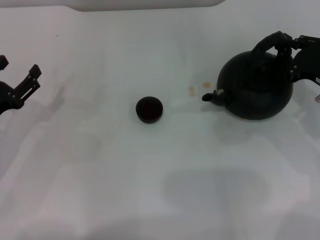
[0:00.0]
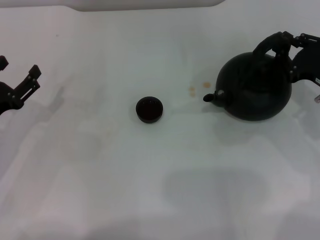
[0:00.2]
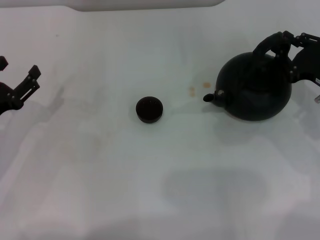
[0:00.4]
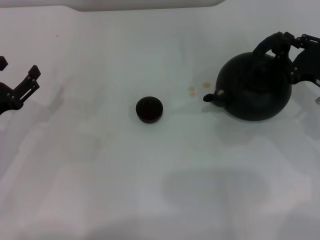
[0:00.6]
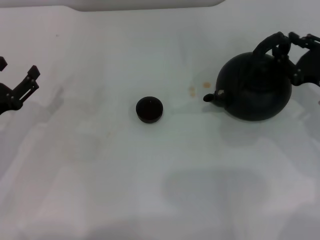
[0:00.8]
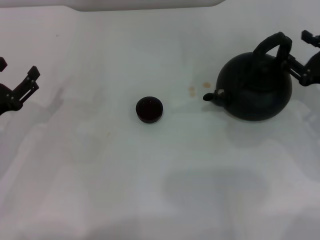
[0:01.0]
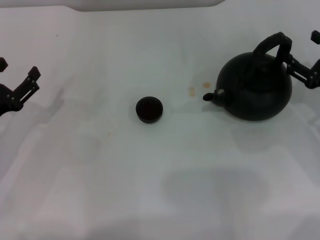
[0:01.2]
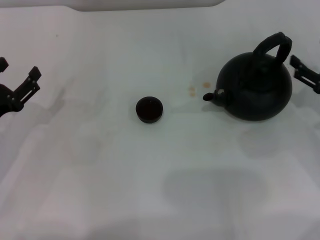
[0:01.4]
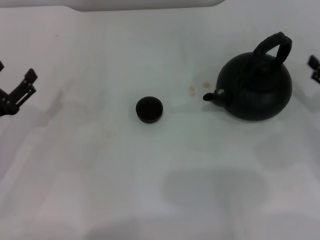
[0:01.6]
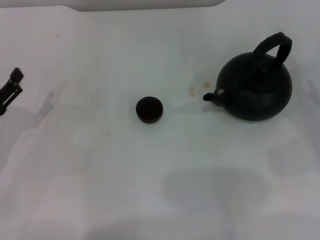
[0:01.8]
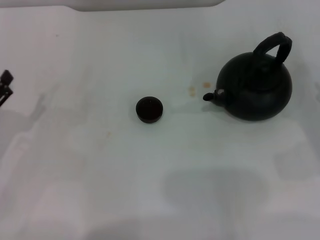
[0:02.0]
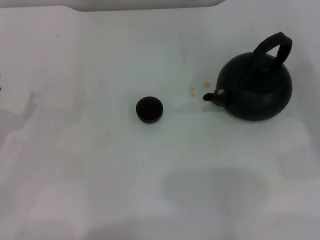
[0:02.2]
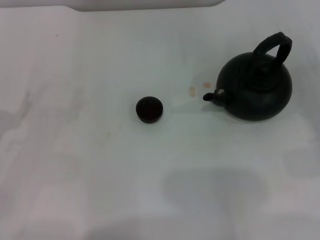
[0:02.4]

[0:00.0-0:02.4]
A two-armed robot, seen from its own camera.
Task of the whole recording: Grasp the handle of the teapot with one hand and pour tea into the teacup.
0:00.0 to 0:01.2: The right gripper opens up.
0:01.2 to 0:02.4: The right gripper is displaced backward and to the right by about 10 cm.

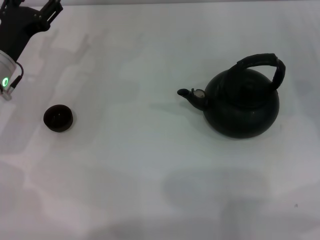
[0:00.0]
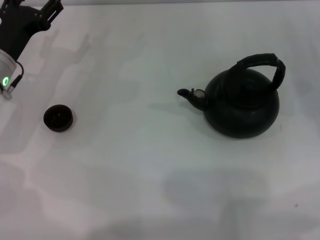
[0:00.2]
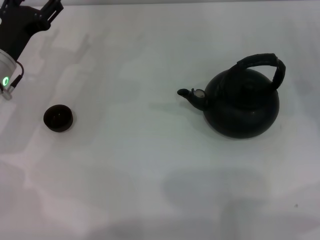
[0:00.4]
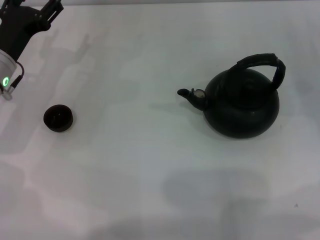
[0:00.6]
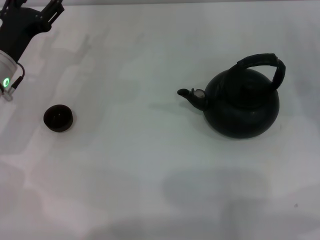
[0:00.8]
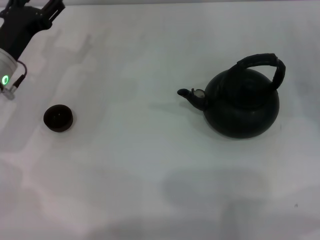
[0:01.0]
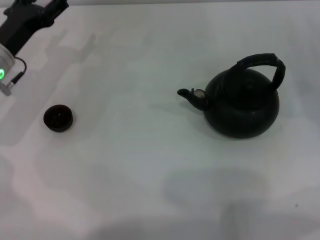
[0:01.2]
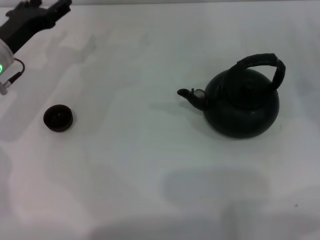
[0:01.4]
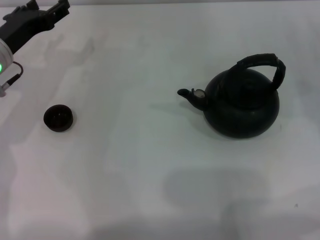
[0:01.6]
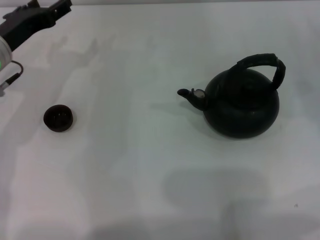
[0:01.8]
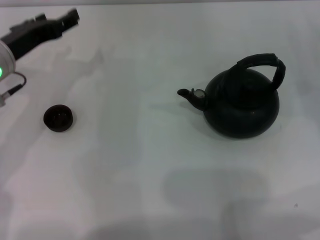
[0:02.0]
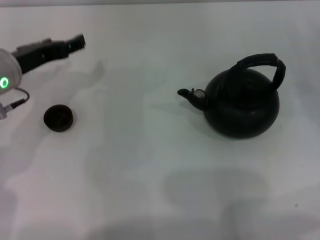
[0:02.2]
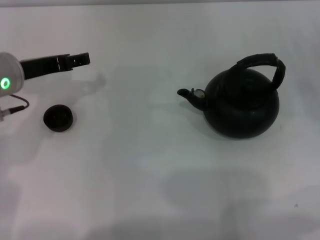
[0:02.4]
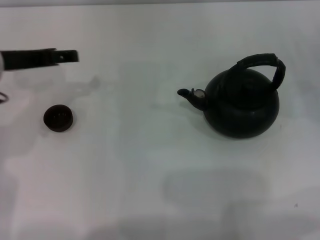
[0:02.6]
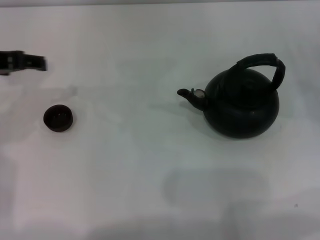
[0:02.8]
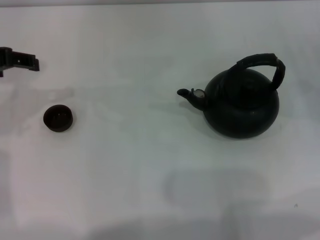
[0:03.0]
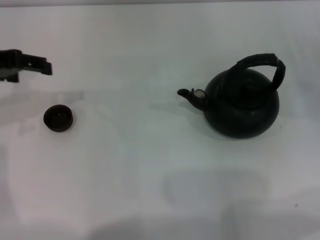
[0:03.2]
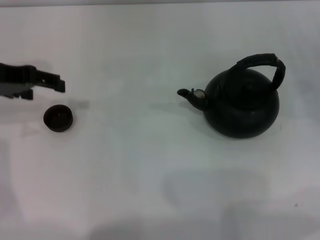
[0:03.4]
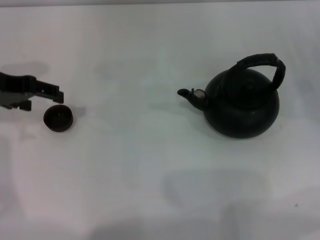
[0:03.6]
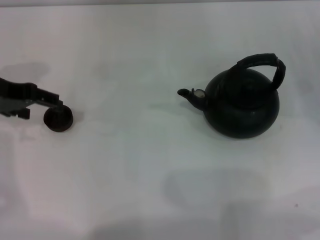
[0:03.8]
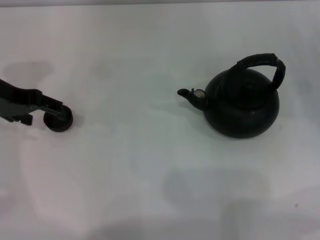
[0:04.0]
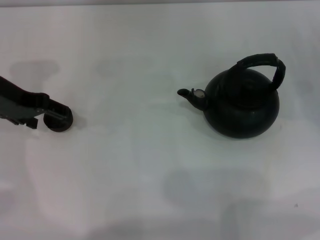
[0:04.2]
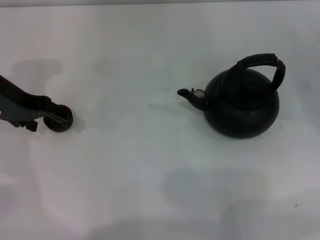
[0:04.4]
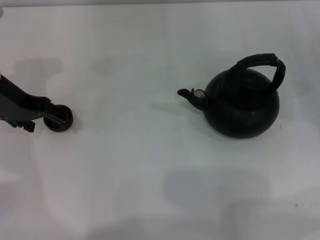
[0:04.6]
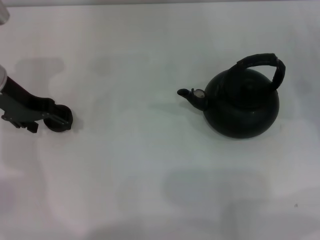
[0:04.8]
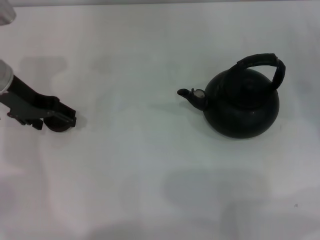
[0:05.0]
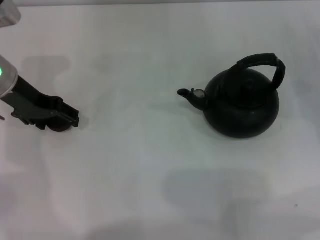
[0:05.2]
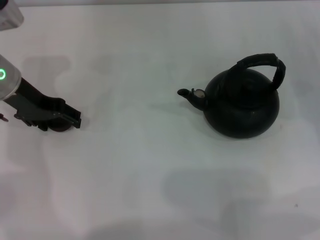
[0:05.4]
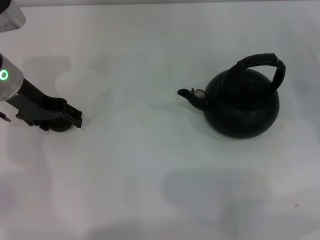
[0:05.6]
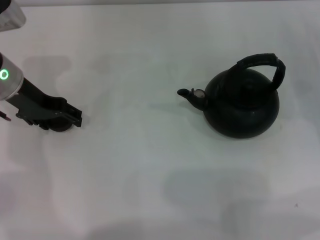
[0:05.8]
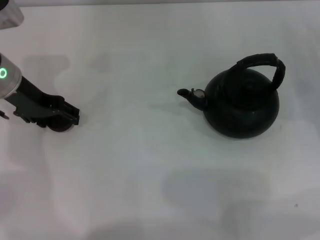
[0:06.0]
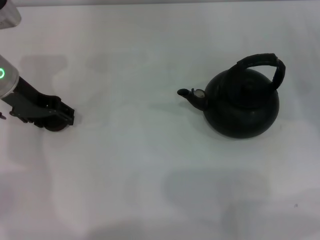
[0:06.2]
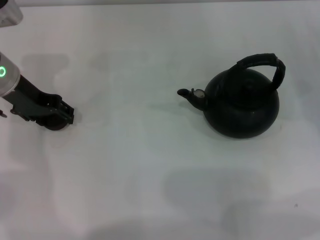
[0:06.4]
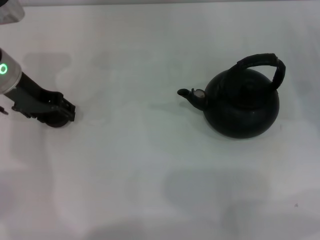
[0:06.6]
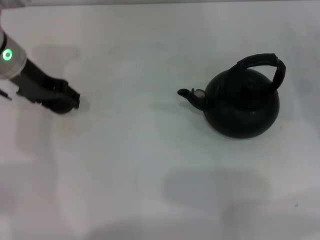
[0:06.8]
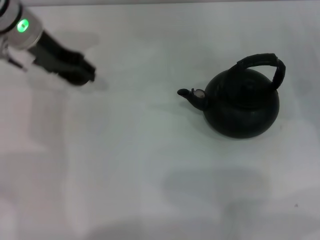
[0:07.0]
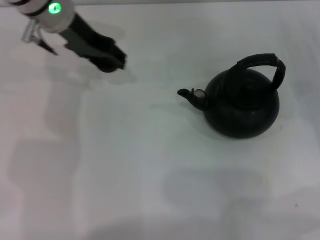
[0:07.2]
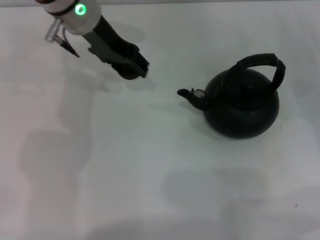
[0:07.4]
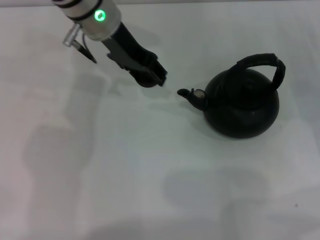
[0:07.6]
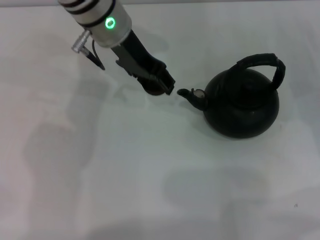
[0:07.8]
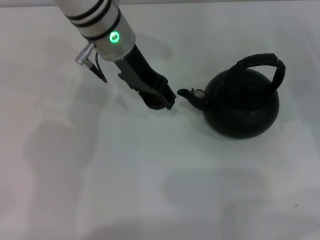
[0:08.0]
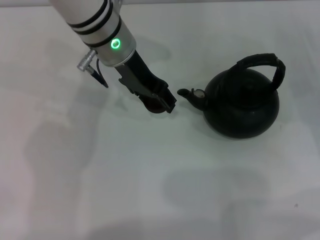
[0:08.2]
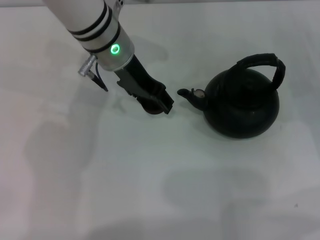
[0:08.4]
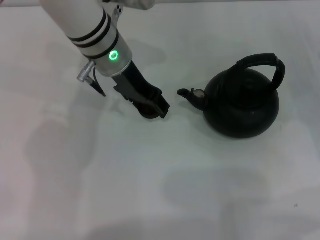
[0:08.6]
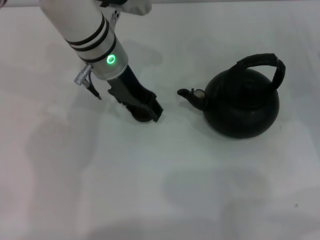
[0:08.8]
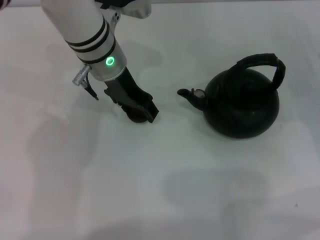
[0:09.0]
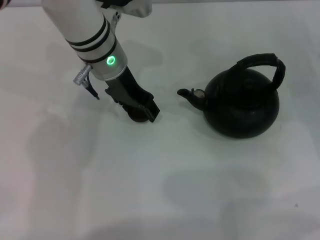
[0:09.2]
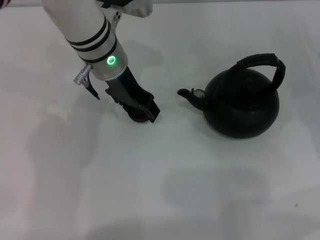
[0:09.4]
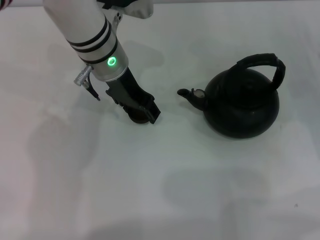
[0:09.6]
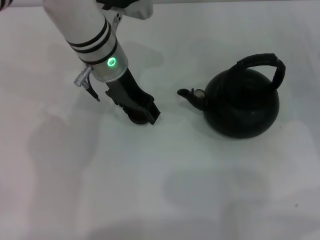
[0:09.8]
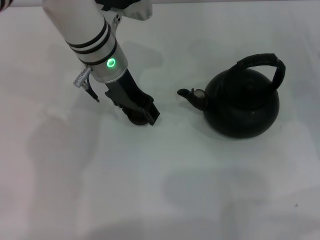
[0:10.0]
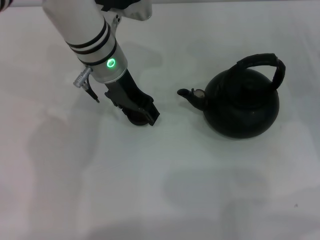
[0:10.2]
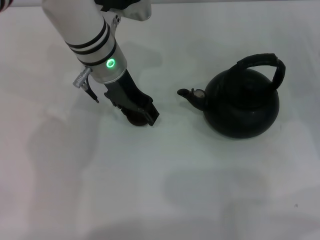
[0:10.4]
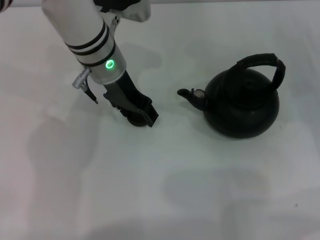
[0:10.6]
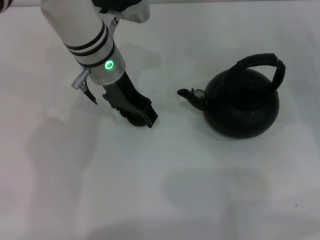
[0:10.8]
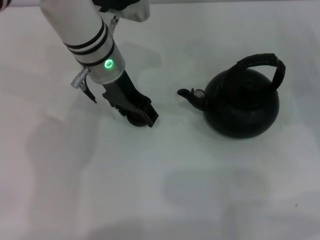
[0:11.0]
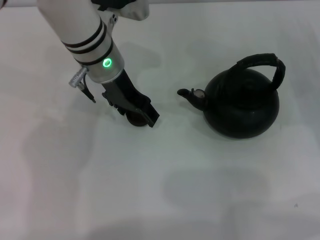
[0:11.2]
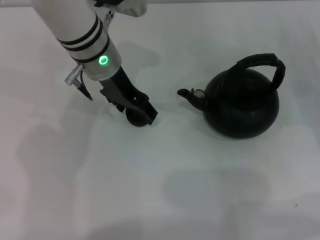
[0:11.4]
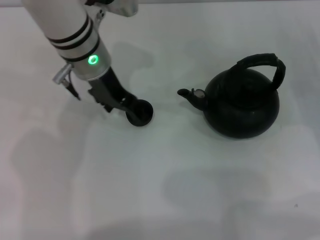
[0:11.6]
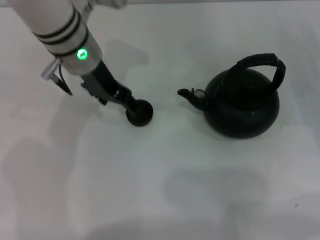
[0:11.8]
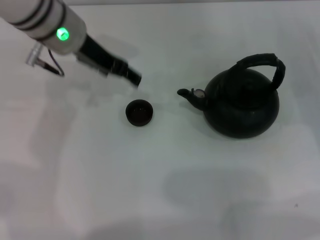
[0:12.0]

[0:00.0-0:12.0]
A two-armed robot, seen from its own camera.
Task of the whole recording: Grasp the handle of the teapot with one hand and pour tea into the teacup.
Step, 0:00.0 to 0:06.8: Pick up the teacup with the left gripper.
Step, 0:07.0 to 0:11.8: Place the teacup in the center of view with the left gripper.
0:00.0 to 0:01.6: There are only small adjustments of the grippers.
0:01.6 to 0:03.0: The left gripper shifts roughly 15 cm upward.
0:03.0 to 0:04.4: The left gripper is displaced downward by roughly 5 cm.
0:04.4 to 0:06.0: The grippers make only small movements.
0:06.0 to 0:07.6: The left gripper shifts some 15 cm to the right and upward, and closes up.
0:07.6 to 0:09.0: The left gripper shifts approximately 5 cm downward.
0:09.0 to 0:10.4: Both grippers stay about where they are.
0:10.4 to 0:12.0: The left gripper moves upward and to the left, roughly 10 cm, and opens.

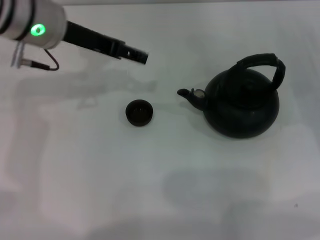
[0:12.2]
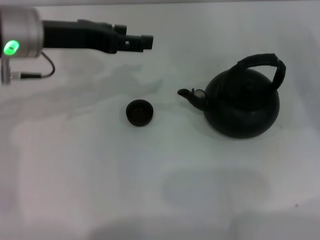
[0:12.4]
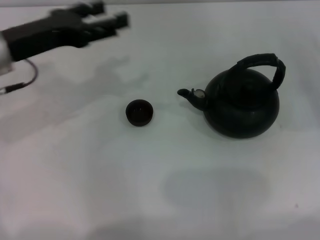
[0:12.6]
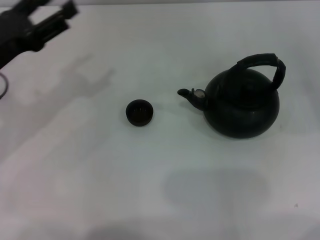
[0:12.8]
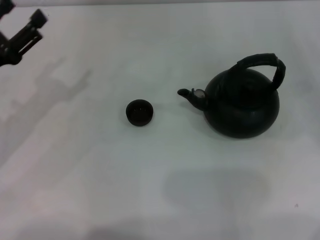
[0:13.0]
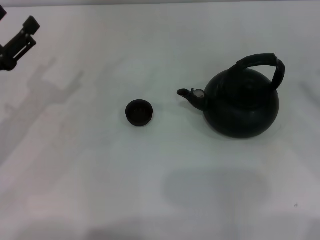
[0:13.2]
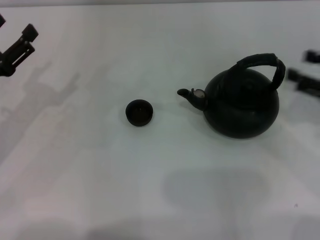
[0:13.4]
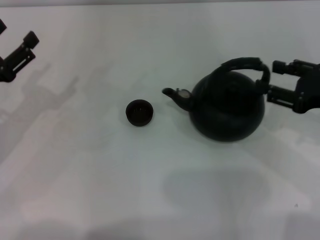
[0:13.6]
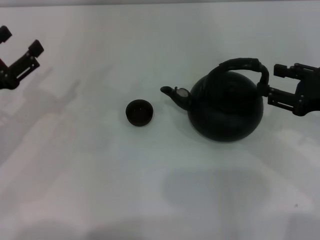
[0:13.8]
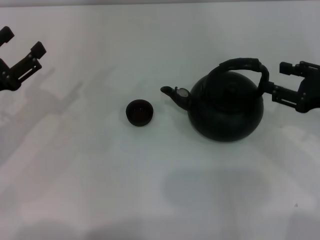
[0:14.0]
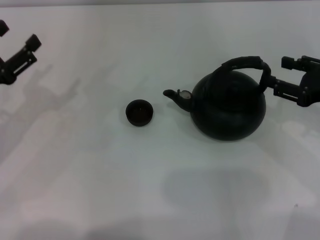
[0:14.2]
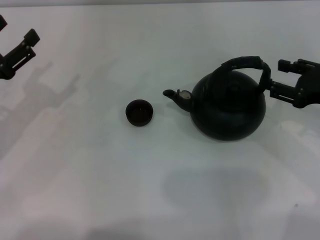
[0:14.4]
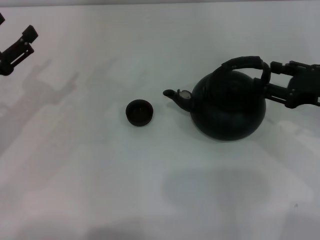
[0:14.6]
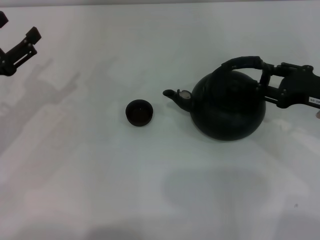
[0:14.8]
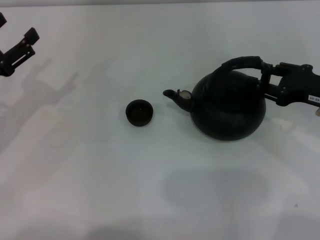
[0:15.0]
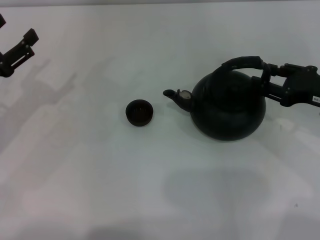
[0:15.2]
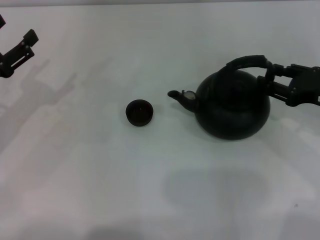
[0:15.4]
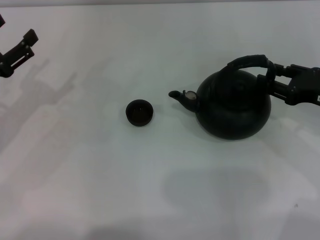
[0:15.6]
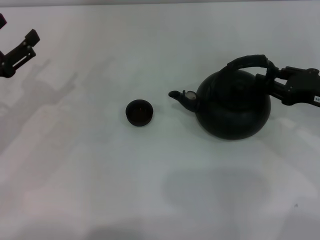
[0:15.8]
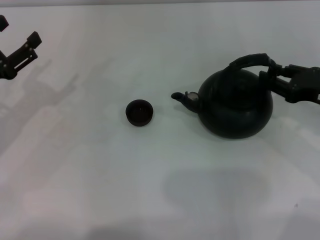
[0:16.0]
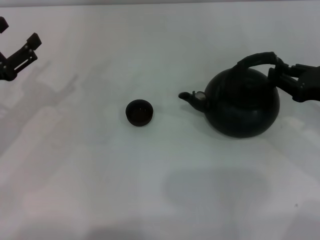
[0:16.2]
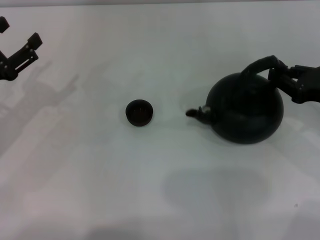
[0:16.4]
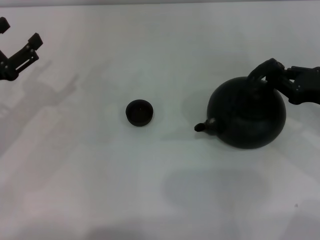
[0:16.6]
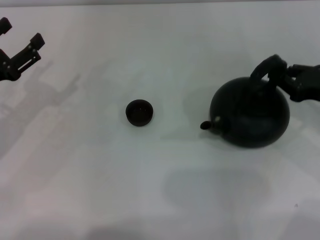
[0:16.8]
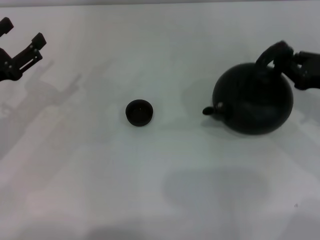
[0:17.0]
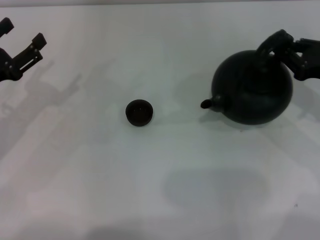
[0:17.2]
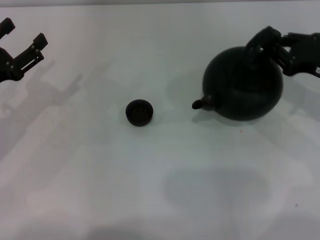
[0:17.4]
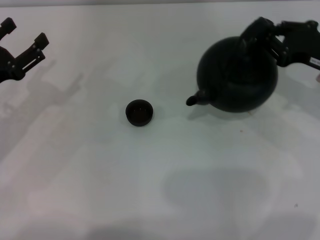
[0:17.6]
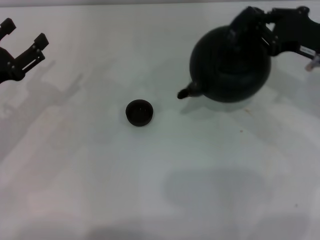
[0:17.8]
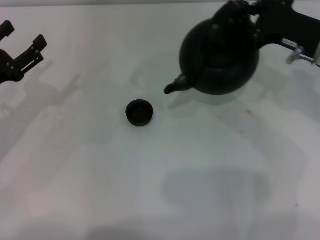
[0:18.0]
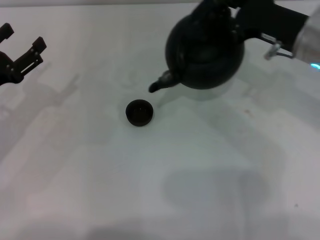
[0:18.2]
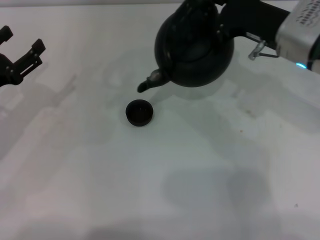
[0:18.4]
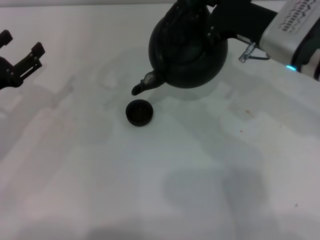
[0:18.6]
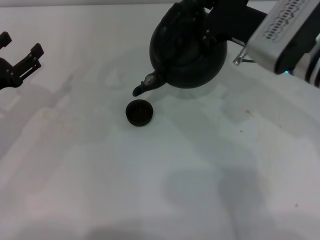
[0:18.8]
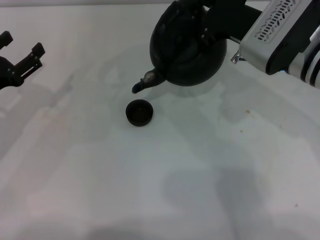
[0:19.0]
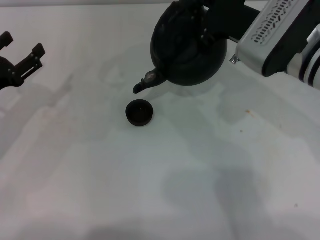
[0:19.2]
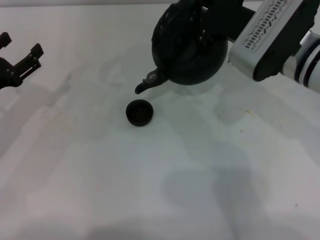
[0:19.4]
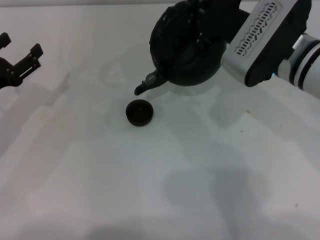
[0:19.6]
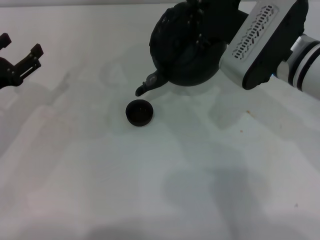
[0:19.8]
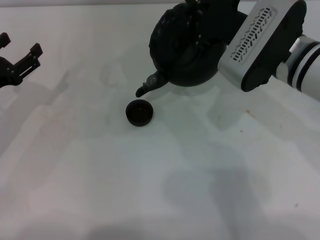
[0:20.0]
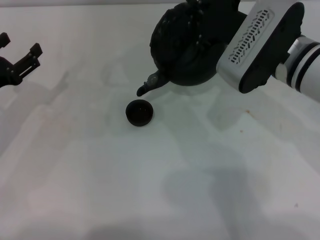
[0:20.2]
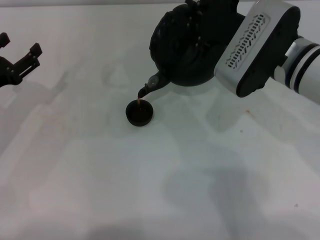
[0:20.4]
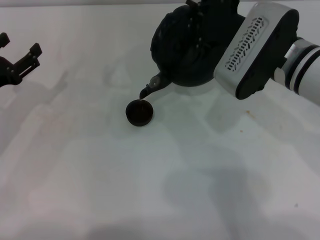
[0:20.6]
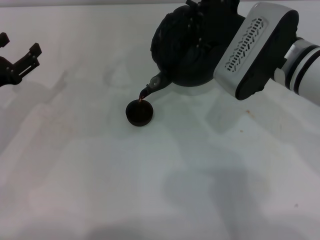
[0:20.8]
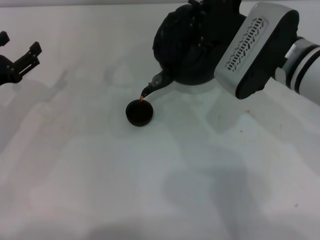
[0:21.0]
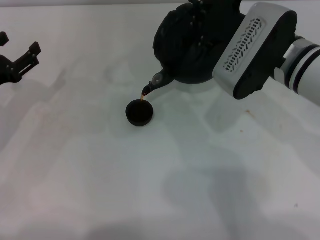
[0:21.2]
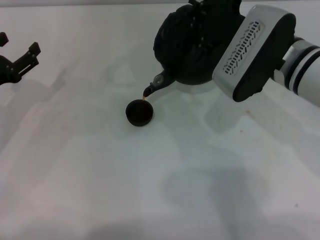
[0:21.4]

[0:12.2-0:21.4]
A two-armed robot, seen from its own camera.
Task of the whole recording: Grasp the handle of the teapot with one hand and pour tea into the teacup.
Step, 0:12.2 to 0:18.0: Pick up the teapot with the right gripper.
0:12.2 to 0:13.8: The left gripper shifts about 20 cm to the left, downward and backward. Meanwhile the right gripper heads upward, to the left and backward, covering approximately 10 cm.
0:13.8 to 0:15.2: There are only small adjustments of the grippers.
0:15.2 to 0:16.8: The right gripper closes its fingers.
0:16.8 to 0:18.4: The right gripper travels to the left, upward and forward by about 15 cm.
0:18.4 to 0:19.8: The grippers move only a little.
0:19.8 to 0:21.4: The grippers make only small movements.
